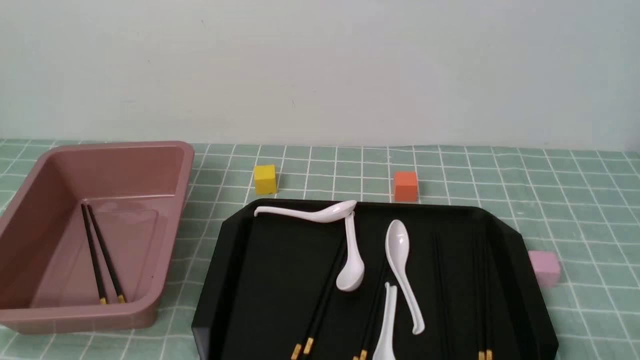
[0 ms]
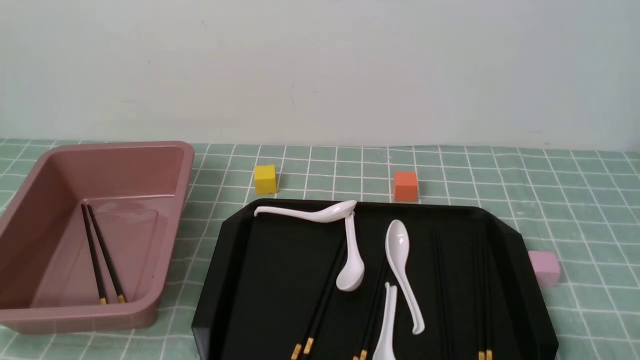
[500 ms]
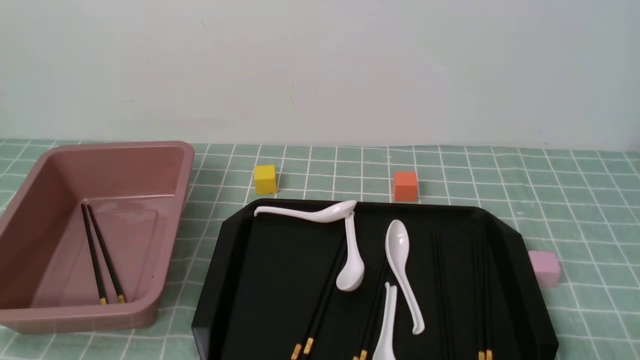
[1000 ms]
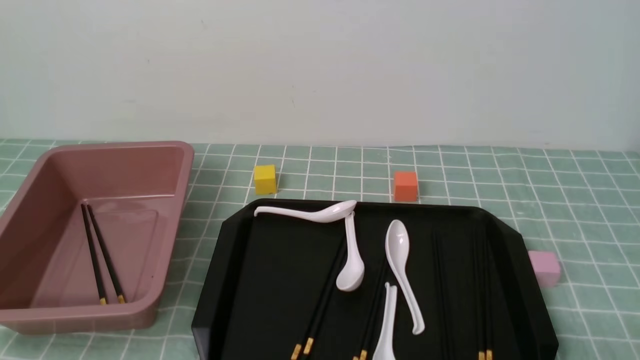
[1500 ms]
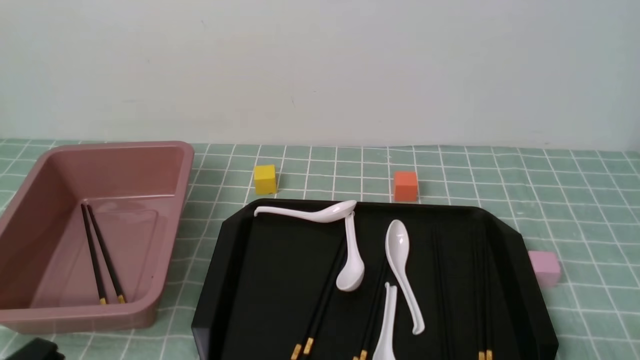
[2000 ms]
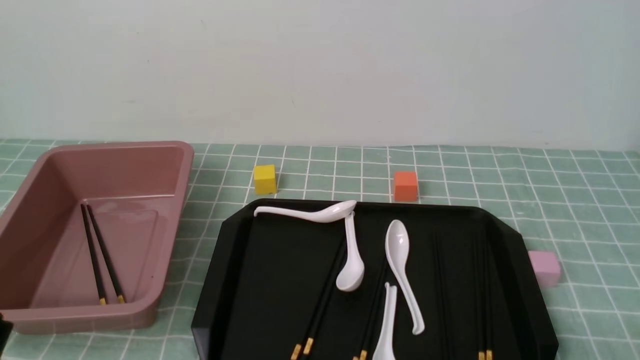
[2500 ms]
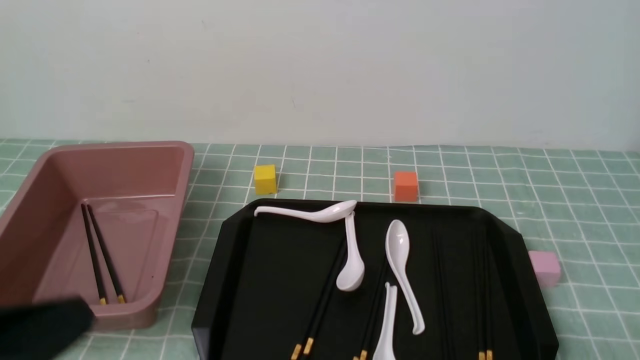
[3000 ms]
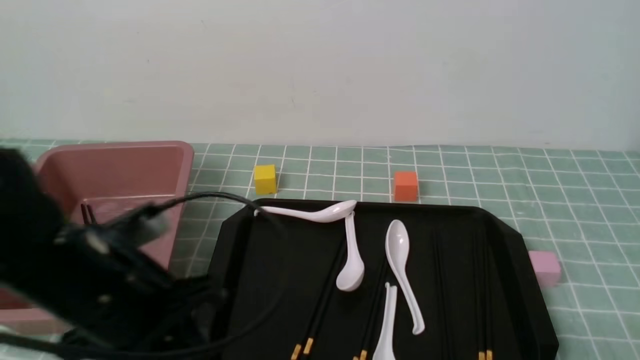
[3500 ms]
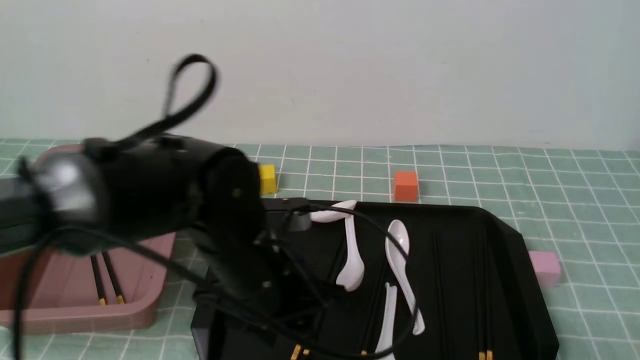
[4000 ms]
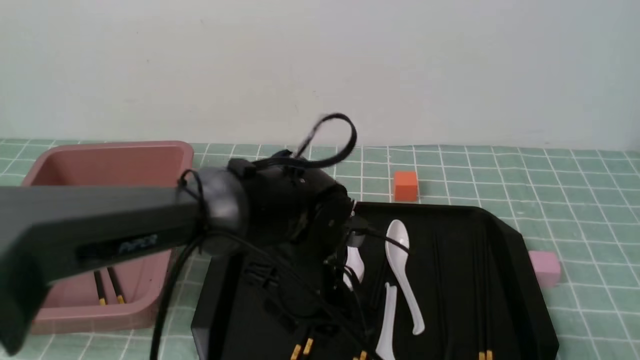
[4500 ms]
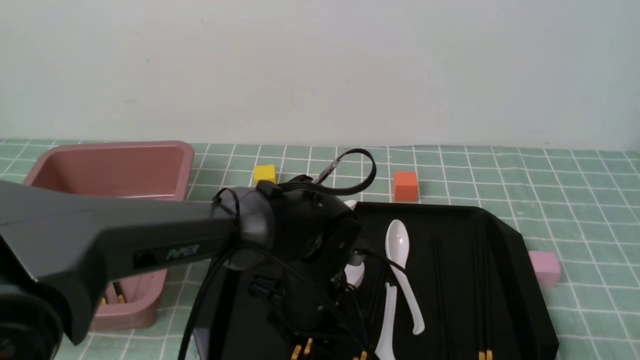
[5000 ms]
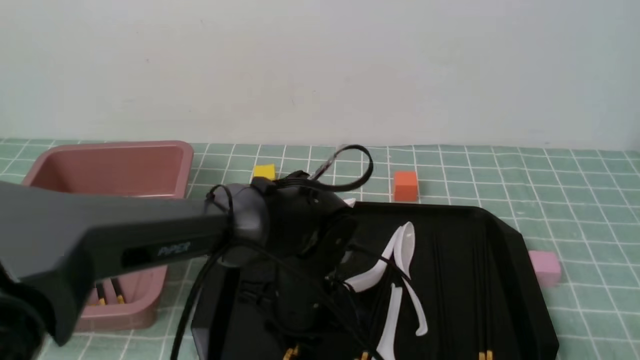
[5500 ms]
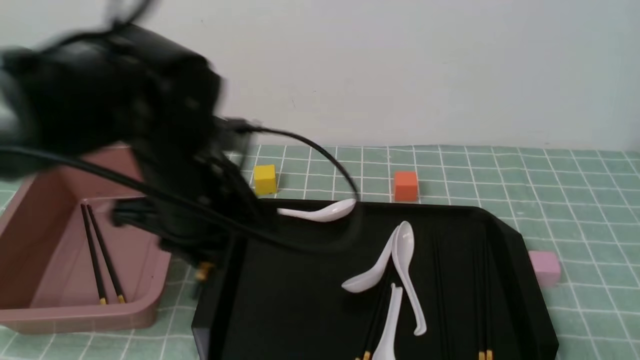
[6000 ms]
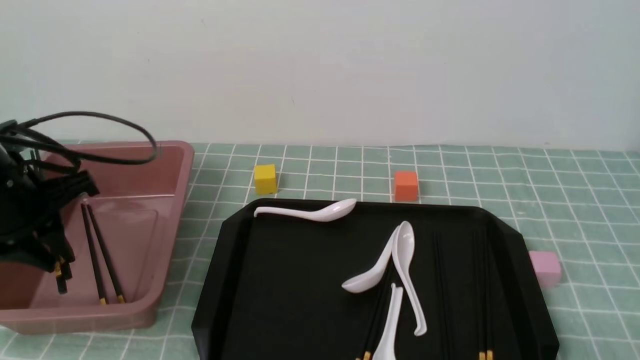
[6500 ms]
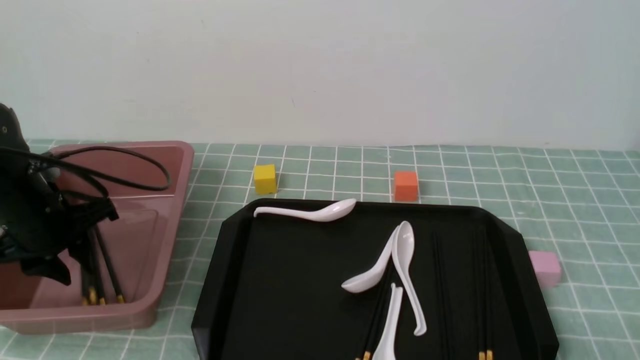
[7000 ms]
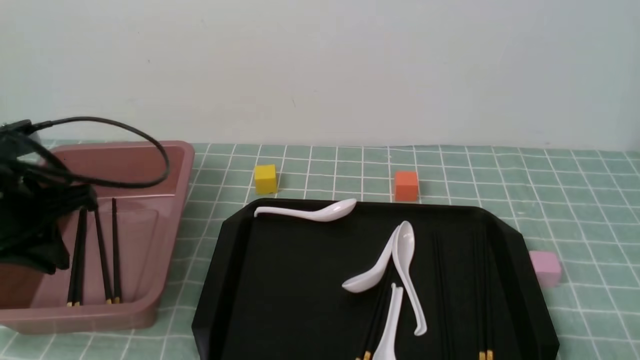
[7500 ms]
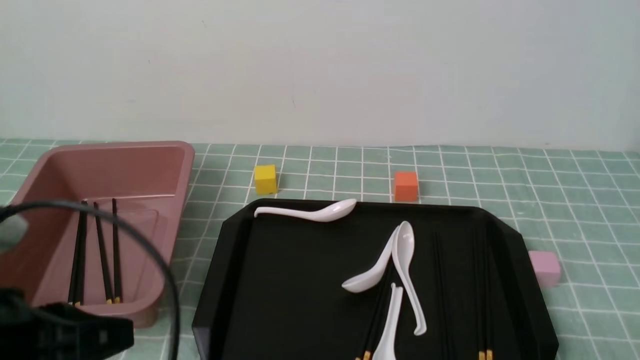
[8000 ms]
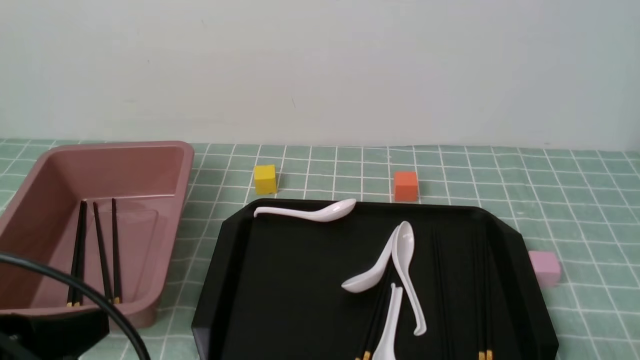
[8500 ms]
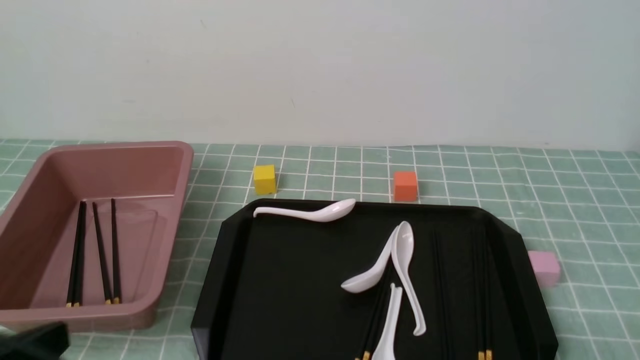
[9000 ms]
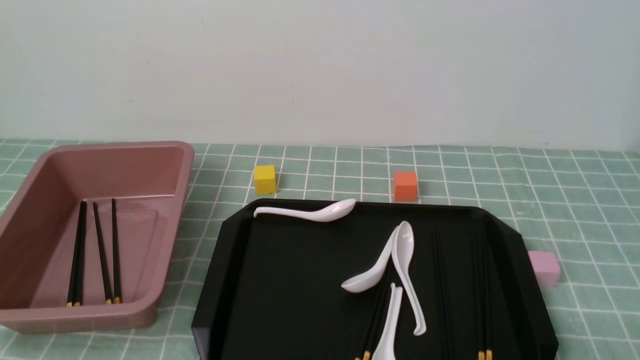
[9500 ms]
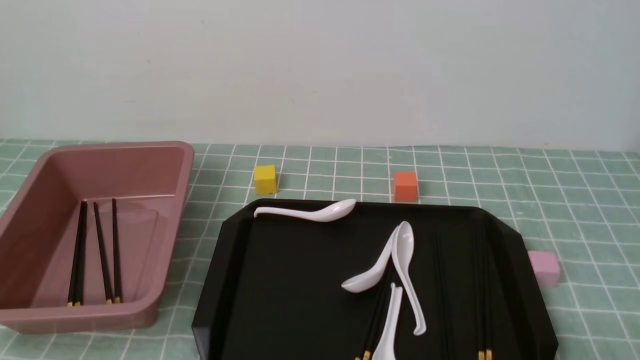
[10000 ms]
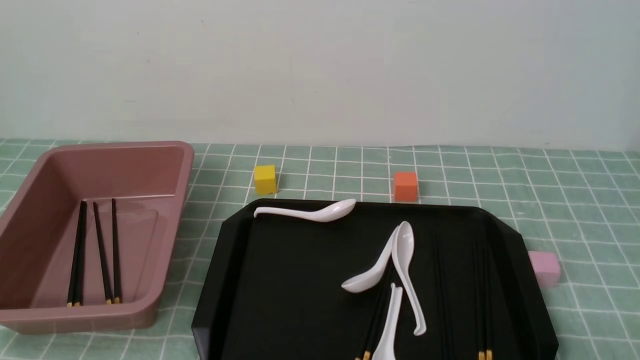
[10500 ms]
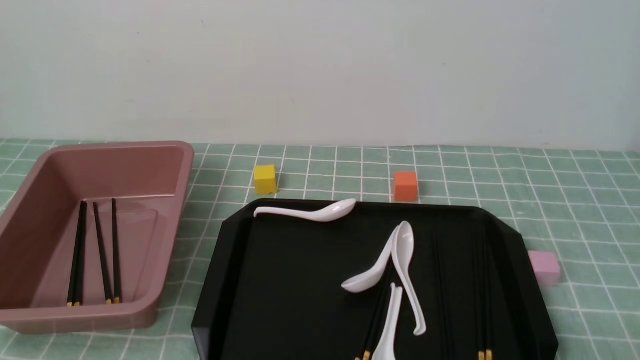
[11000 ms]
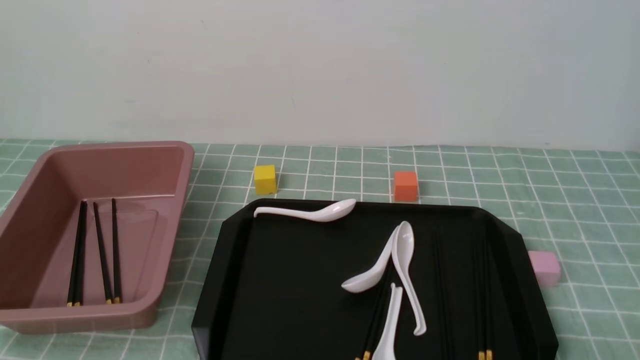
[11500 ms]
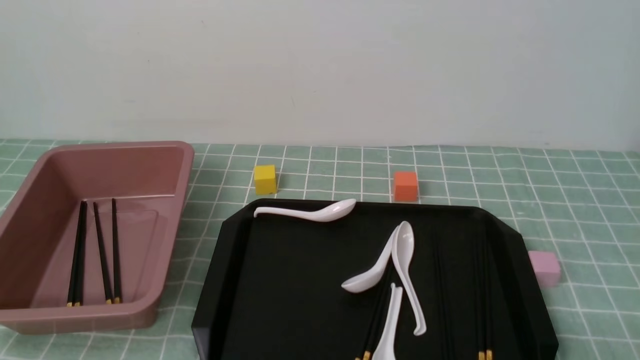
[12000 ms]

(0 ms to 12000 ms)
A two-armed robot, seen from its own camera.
Step, 0 ms - 5500 ms: use the left arm to grab a pair of chopsticks.
Step, 6000 ms - 7500 ms: use the left arm to put the chopsticks into the lunch box.
2000 ms - 4000 ms: The left gripper goes roughly 30 cm forward and to the right, and opens up.
4000 ms - 6000 ms: The left gripper shifts approximately 10 cm to the left and upward, and closes its fingers.
6000 ms - 8000 ms: The left gripper goes approximately 20 cm backward and to the left, and closes up.
8000 ms - 10000 ms: The left gripper goes about 15 cm downward and backward.
10000 ms - 12000 ms: Neither gripper changes place.

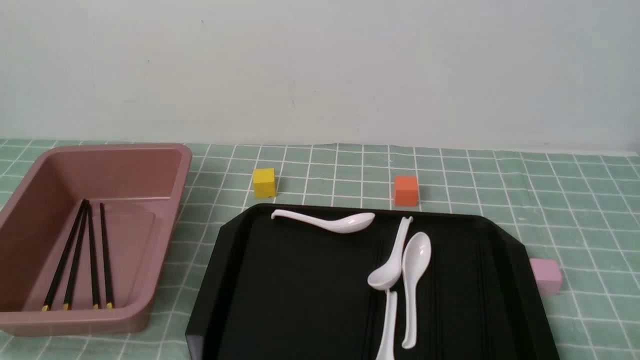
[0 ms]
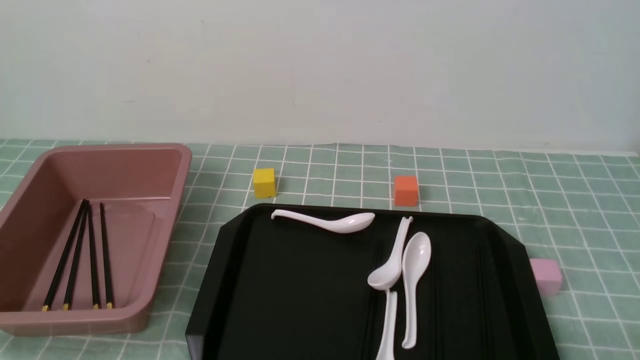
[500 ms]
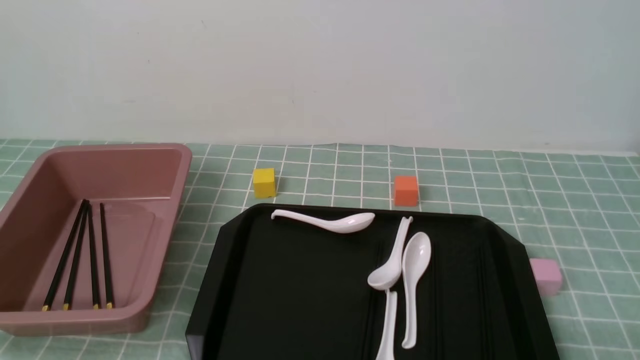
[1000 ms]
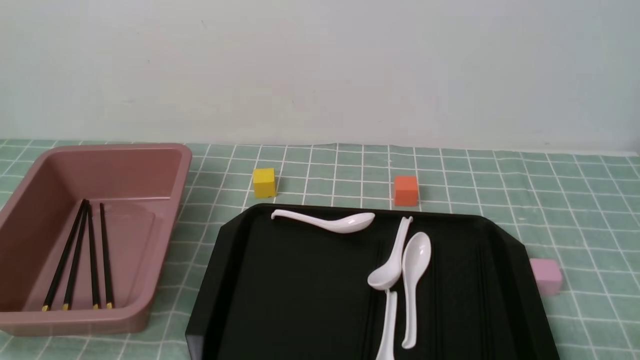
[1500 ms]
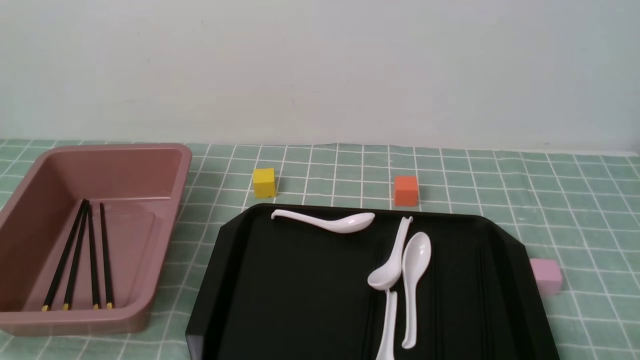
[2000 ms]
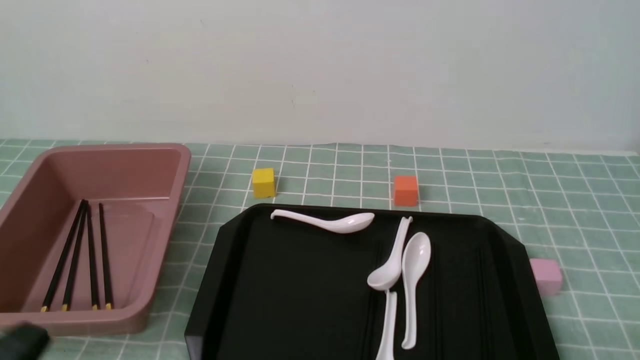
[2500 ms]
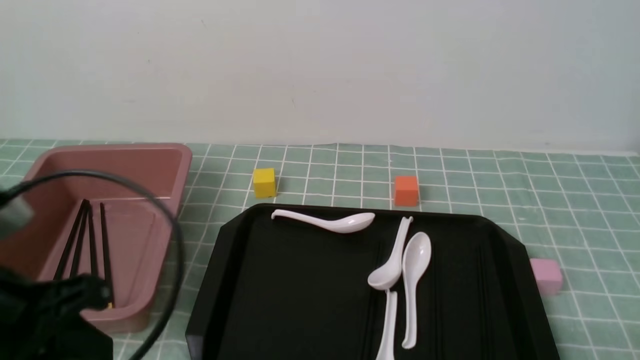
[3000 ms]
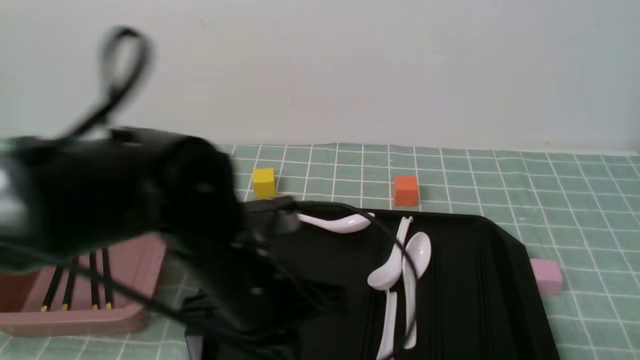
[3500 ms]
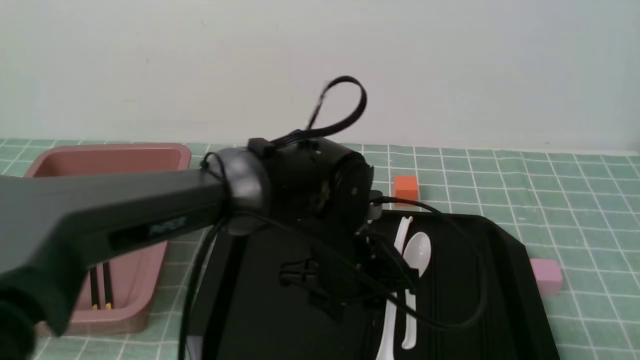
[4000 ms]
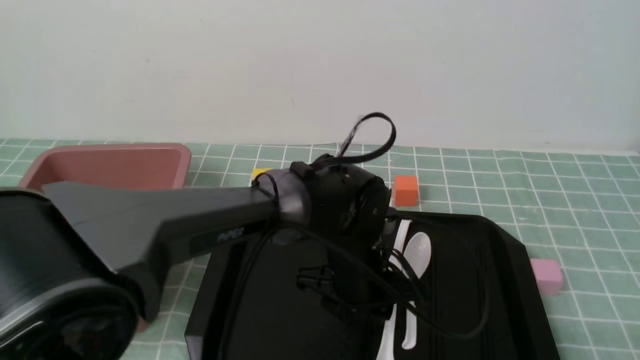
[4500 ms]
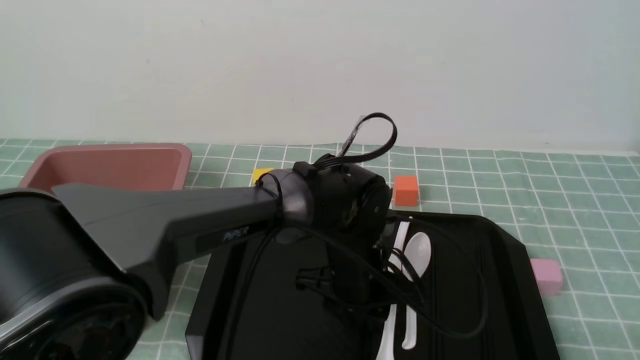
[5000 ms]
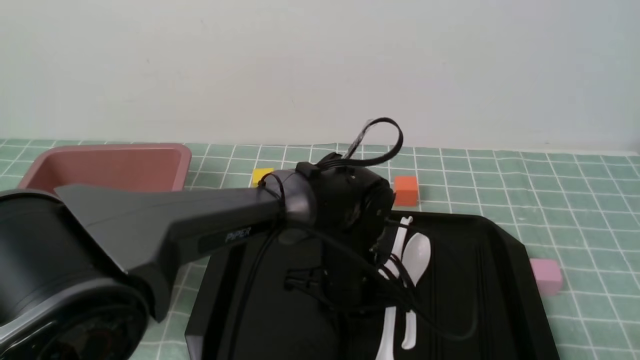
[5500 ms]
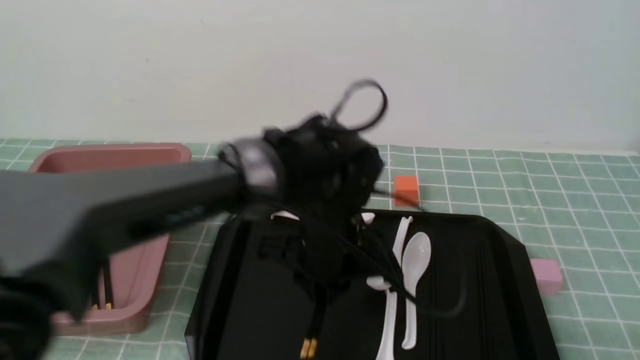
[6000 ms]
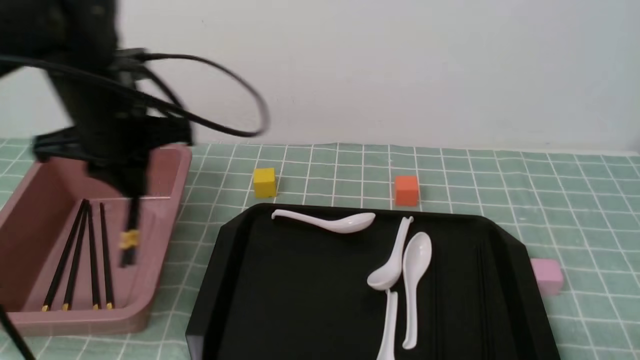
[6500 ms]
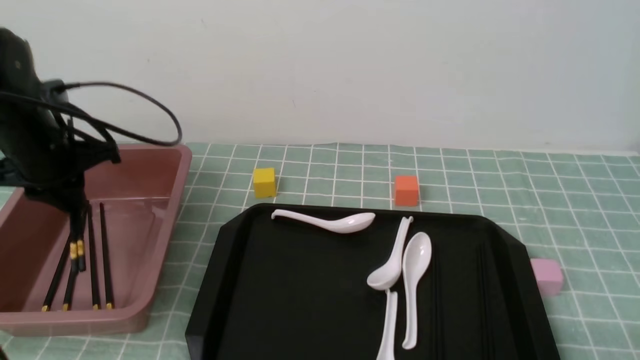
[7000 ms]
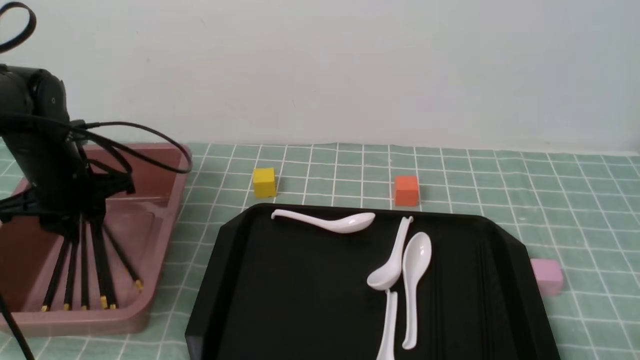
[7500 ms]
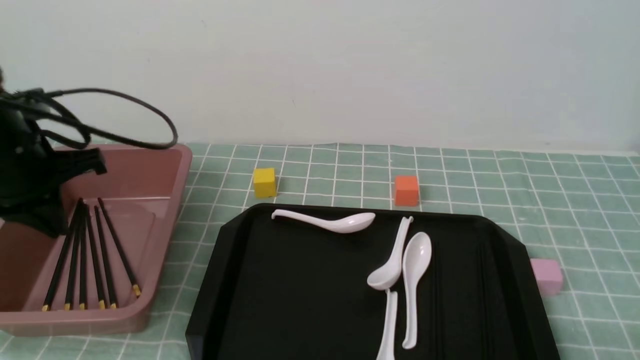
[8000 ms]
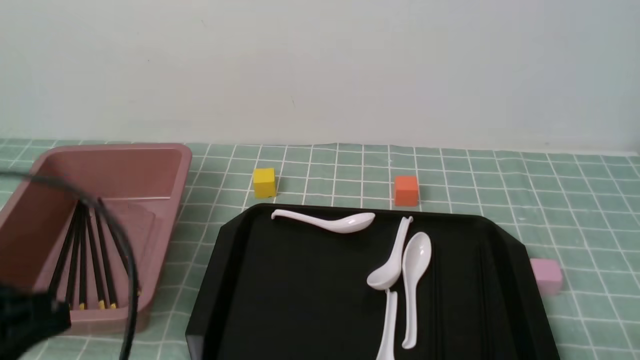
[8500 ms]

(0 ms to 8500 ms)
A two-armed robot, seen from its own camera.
Step, 0 ms - 6000 ms: use the left arm to grab a pair of chopsticks.
Step, 6500 ms - 7500 ms: use the left arm to put the chopsticks into the lunch box.
2000 ms - 4000 ms: The left gripper goes roughly 35 cm to the right and forward, and opens up.
4000 ms - 6500 ms: The left gripper travels to the left and upward by roughly 25 cm, and closes.
6500 ms - 8500 ms: The left gripper travels backward by approximately 25 cm.
